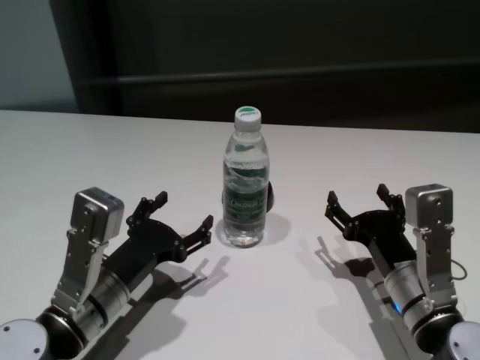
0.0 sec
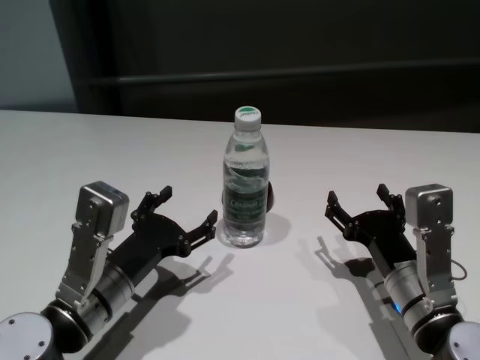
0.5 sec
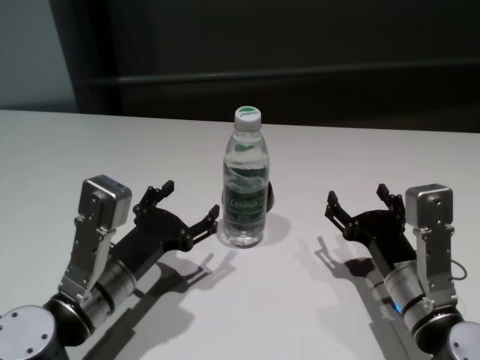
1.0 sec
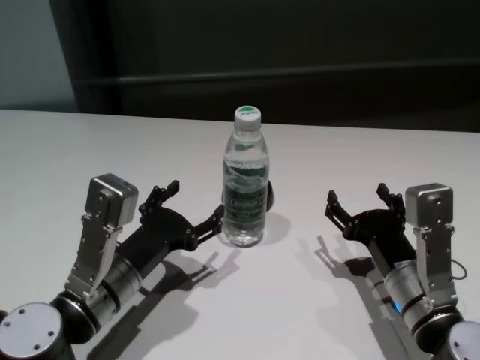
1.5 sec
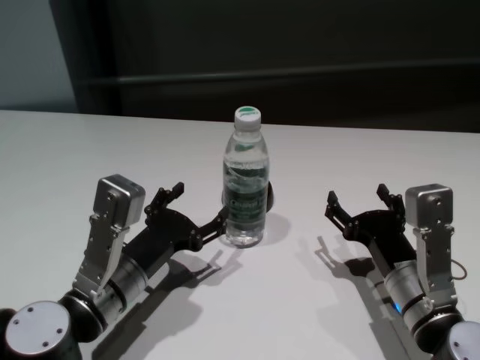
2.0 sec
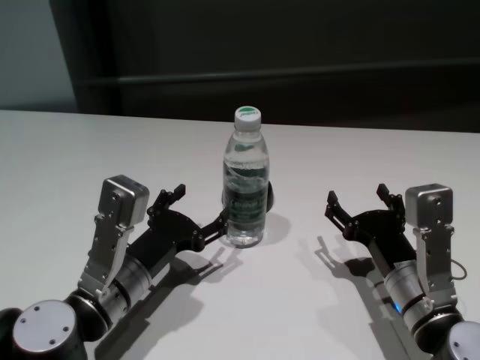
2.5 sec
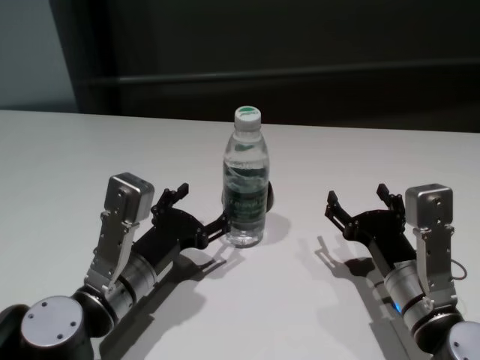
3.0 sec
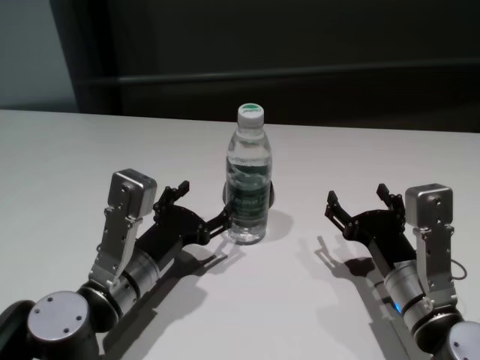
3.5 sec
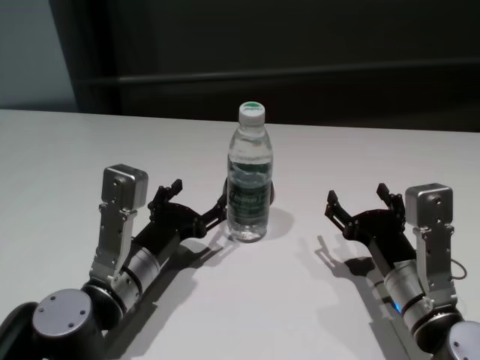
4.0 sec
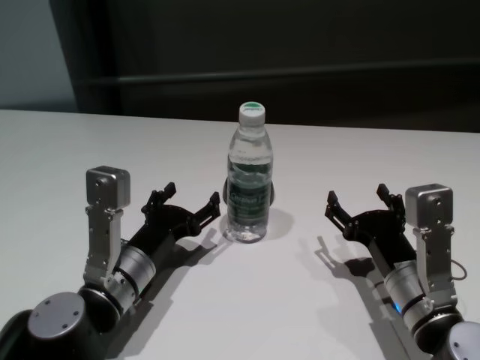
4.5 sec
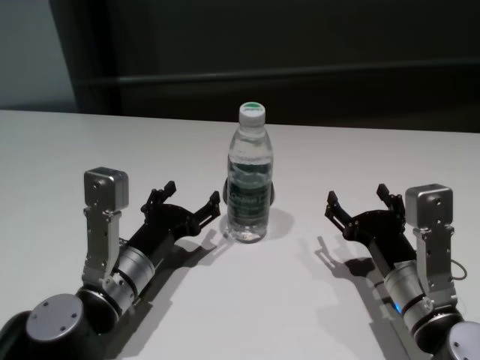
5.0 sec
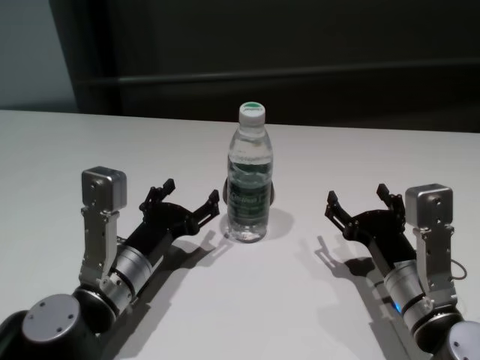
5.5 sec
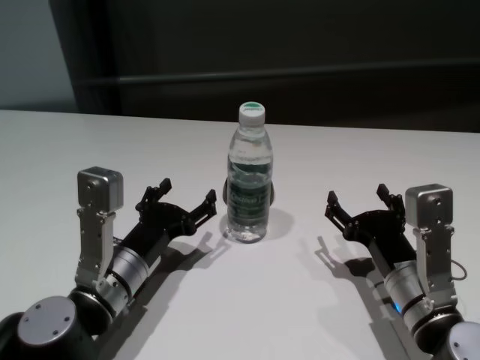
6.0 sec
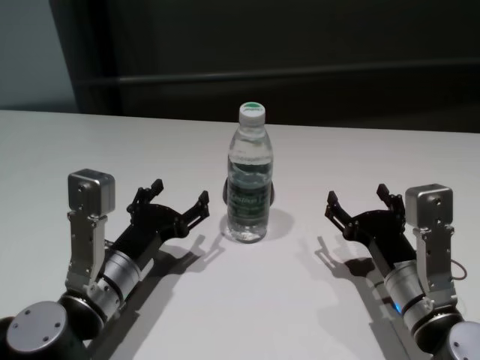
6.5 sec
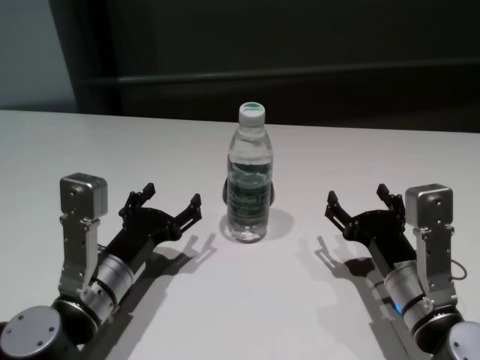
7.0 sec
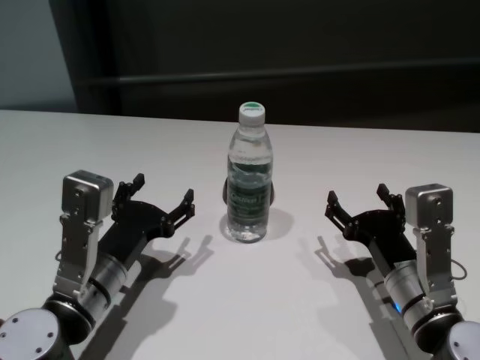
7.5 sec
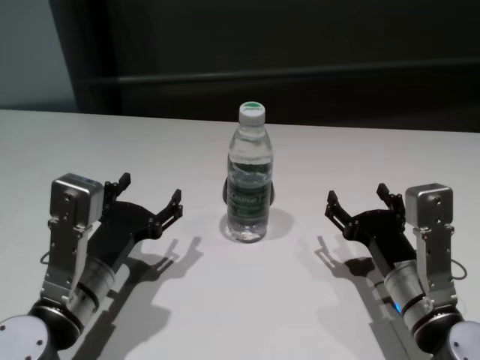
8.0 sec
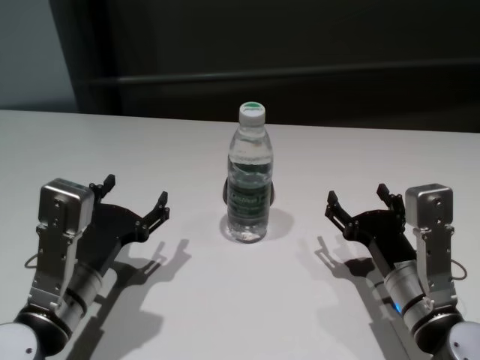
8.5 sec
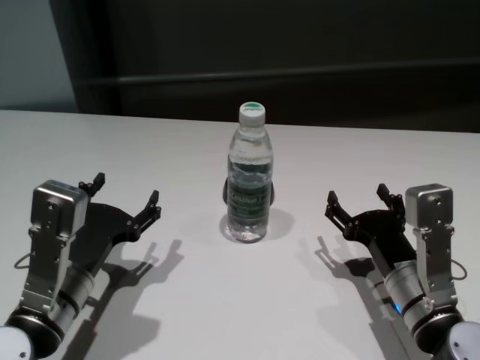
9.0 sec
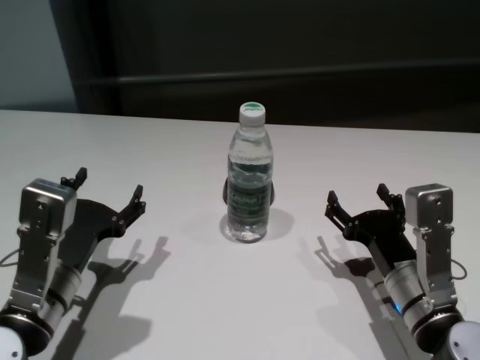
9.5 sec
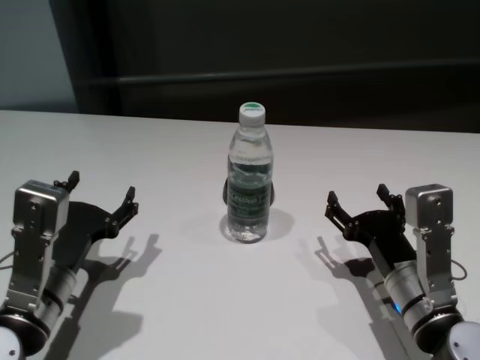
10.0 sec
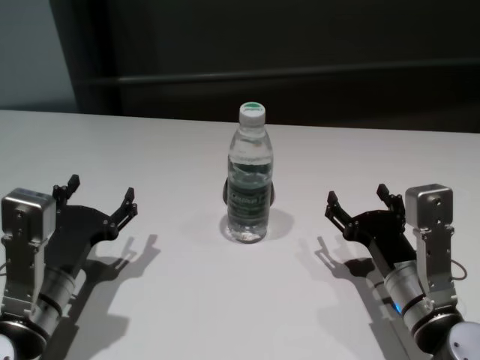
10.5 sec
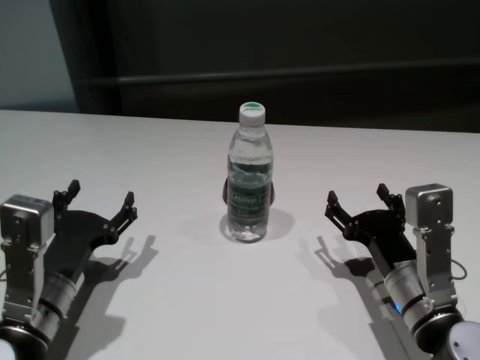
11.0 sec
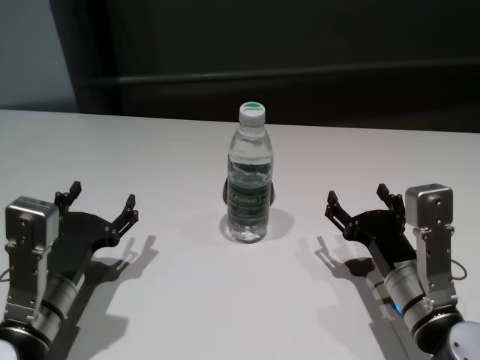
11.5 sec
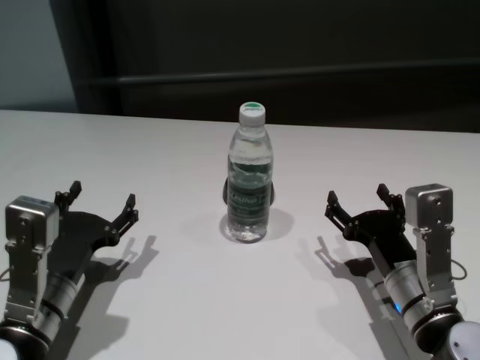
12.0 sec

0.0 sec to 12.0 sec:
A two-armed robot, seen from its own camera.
Task of the whole recording: return to a safe position after touching an obstacle with your arm on the white table.
Step, 0.0 sec to 6.0 sec: Touch the bottle with left gripper.

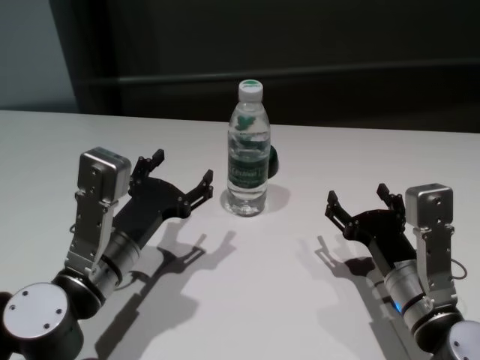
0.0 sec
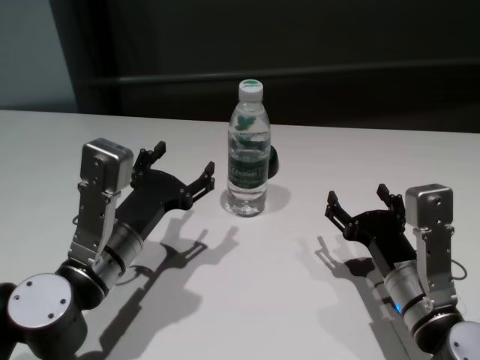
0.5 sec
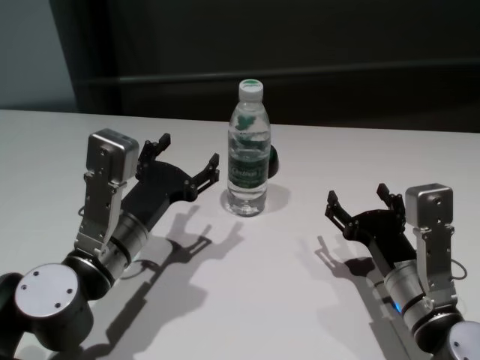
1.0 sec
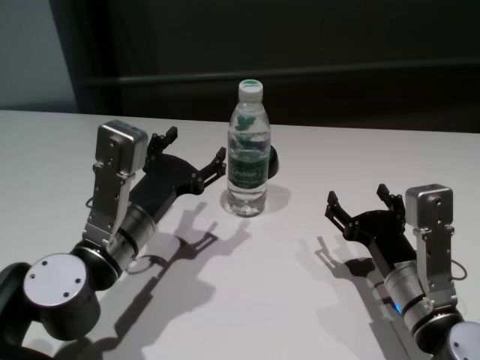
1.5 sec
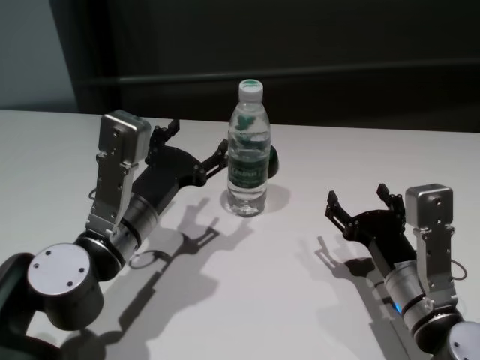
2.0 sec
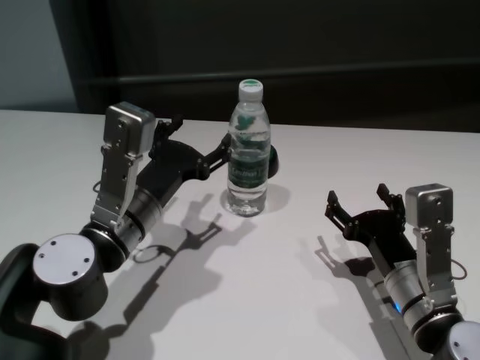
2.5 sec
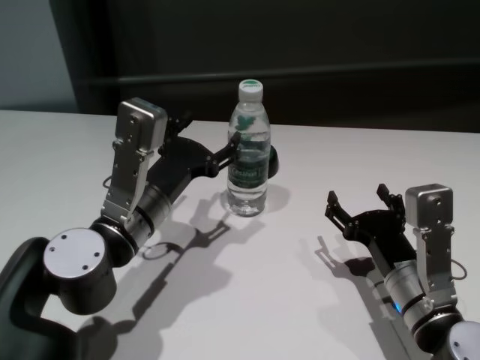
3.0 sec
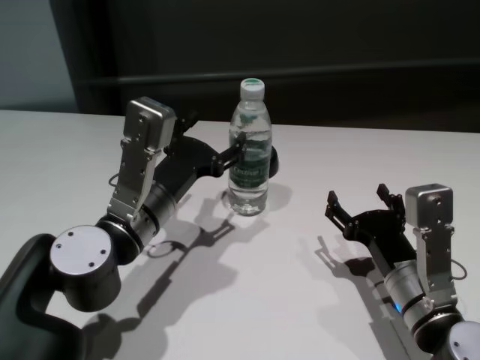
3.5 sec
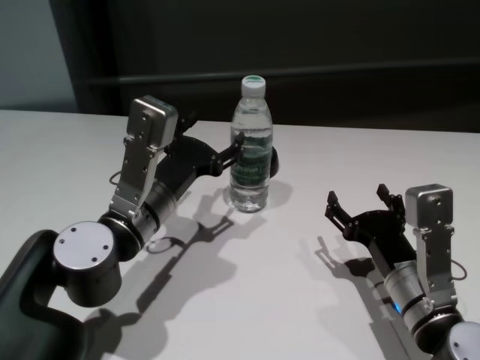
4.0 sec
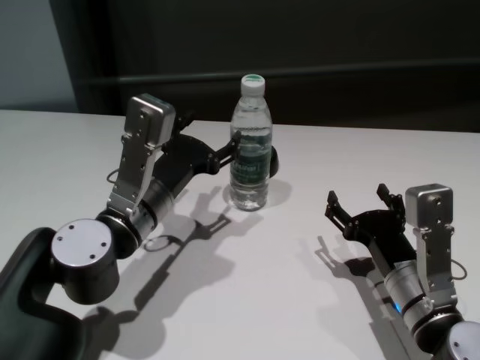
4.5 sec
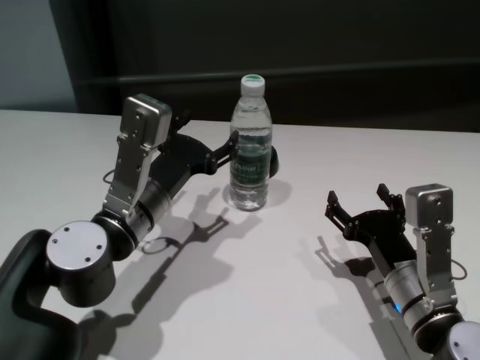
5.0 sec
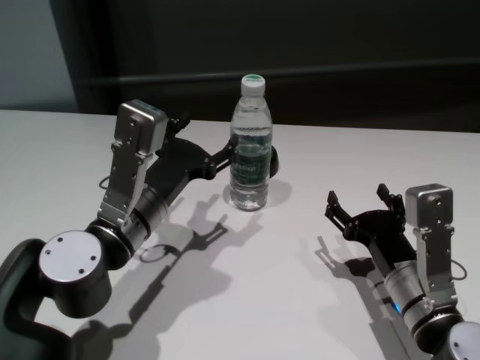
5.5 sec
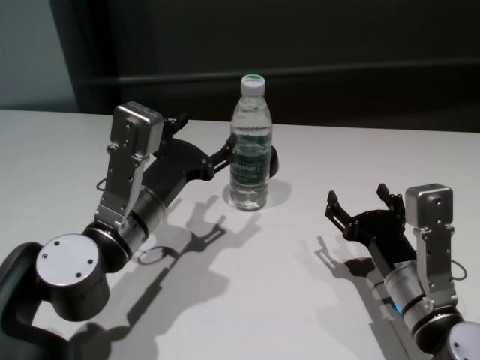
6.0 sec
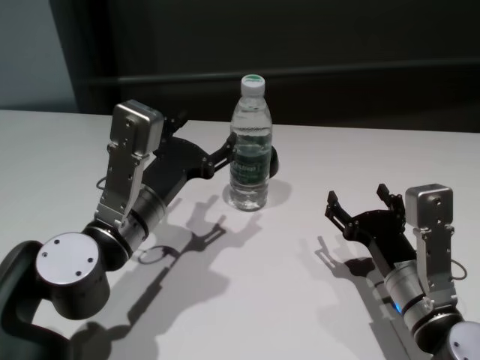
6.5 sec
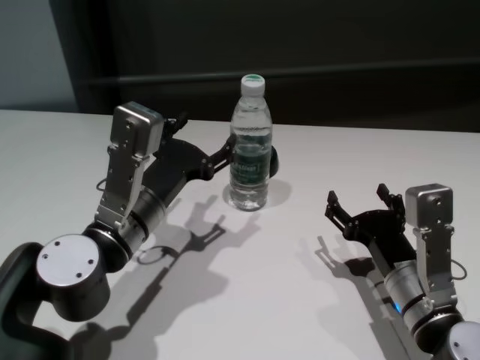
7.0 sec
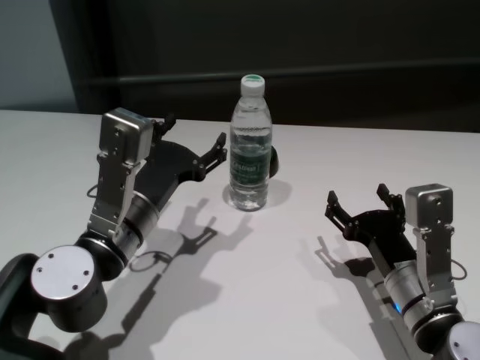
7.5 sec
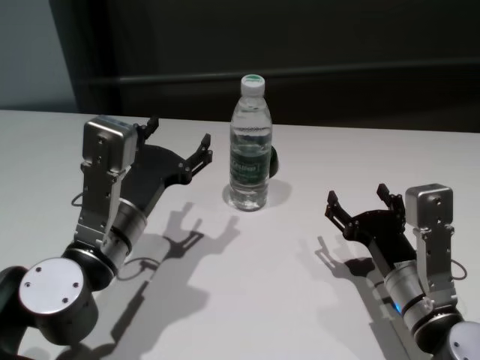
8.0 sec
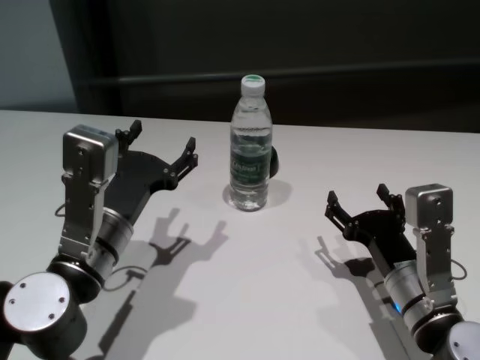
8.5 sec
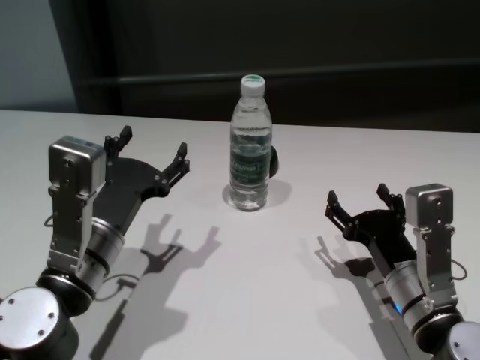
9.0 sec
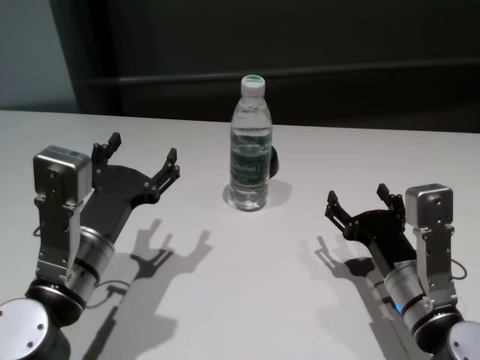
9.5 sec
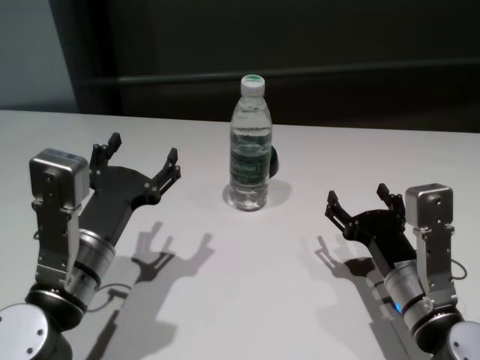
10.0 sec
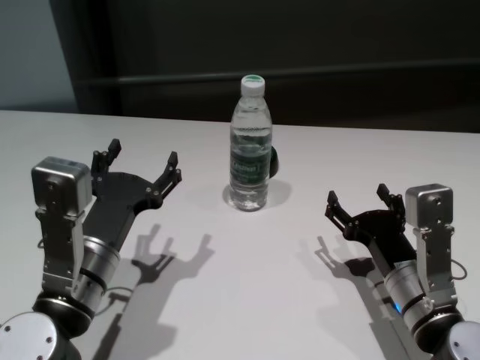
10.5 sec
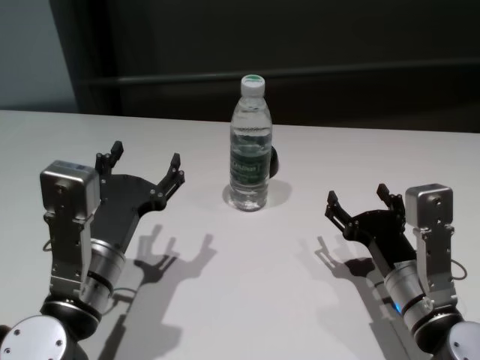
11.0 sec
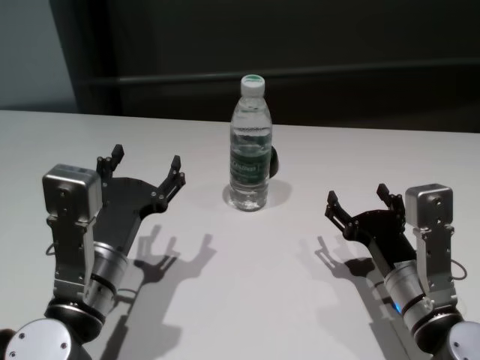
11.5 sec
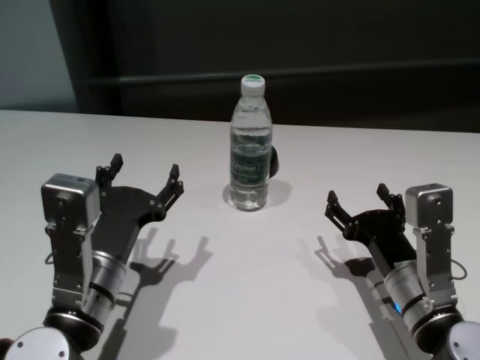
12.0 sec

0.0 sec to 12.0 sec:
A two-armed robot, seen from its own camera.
Task of the whole recording: return to a safe position after touching an obstacle with your arm on the white table.
Step, 0.0 sec to 7.5 sec: Touch the bottle with left gripper.

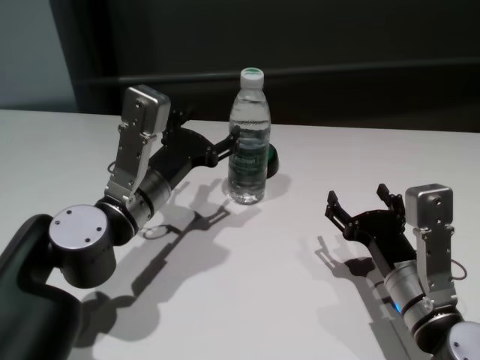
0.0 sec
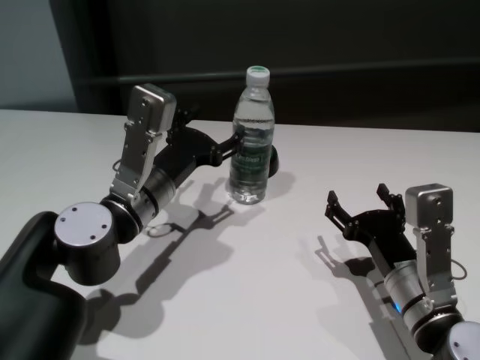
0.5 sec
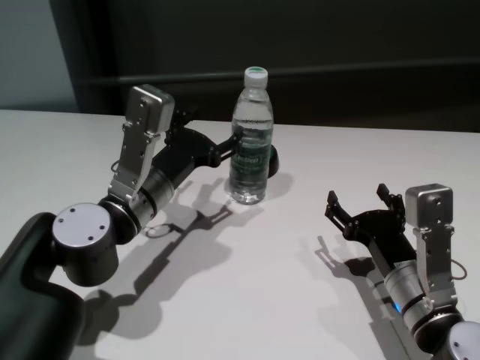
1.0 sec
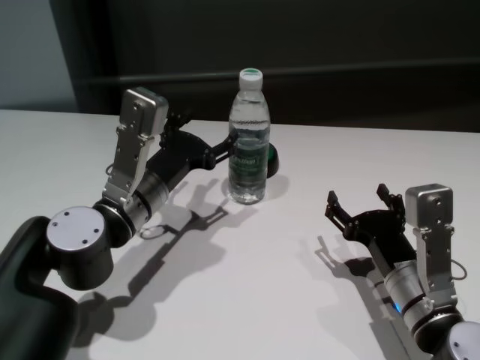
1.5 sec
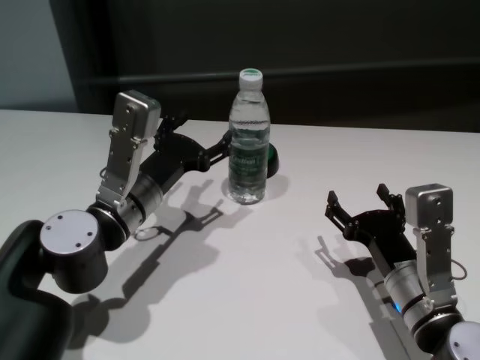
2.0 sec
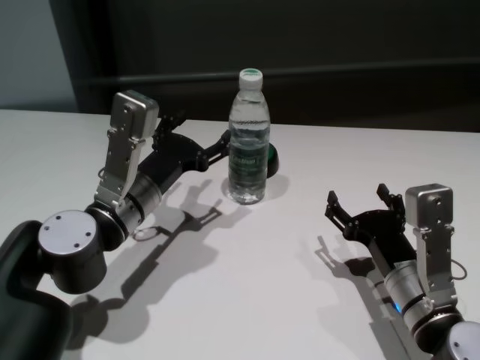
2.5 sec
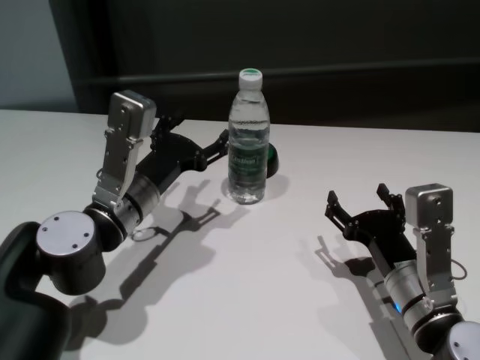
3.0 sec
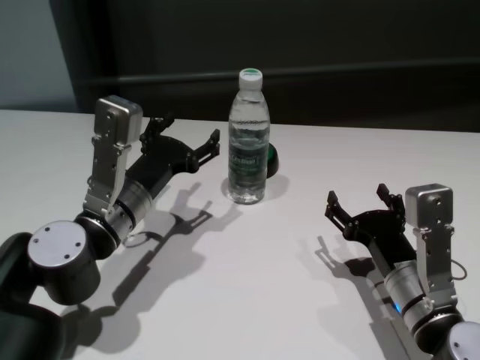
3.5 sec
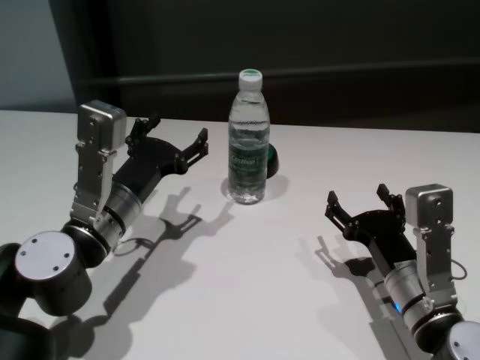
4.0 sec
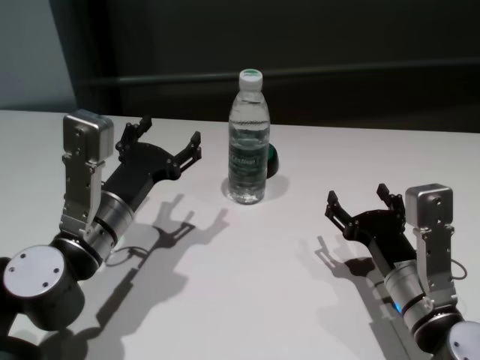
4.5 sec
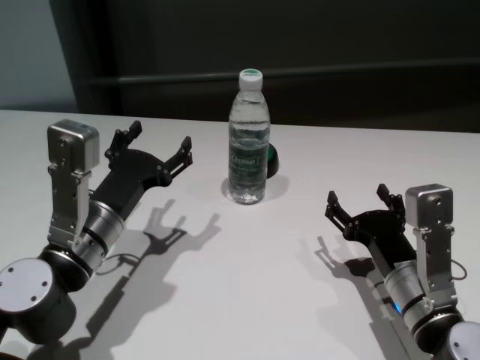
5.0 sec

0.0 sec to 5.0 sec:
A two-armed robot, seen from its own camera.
Task of the whole recording: return to a safe position after touching an obstacle with your arm on the white table.
Step, 0.0 sec to 3.0 sec: Touch the bottle with left gripper.
